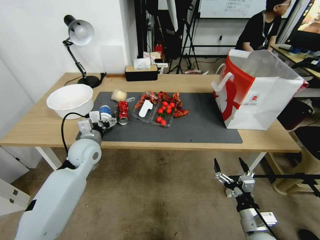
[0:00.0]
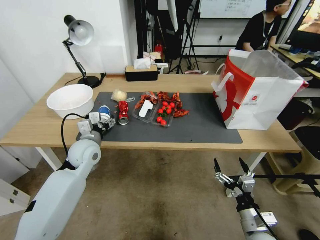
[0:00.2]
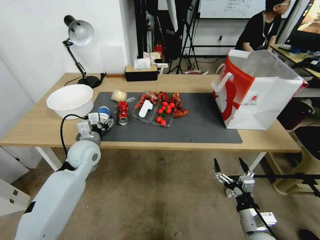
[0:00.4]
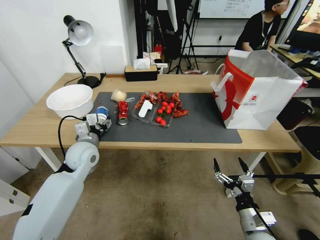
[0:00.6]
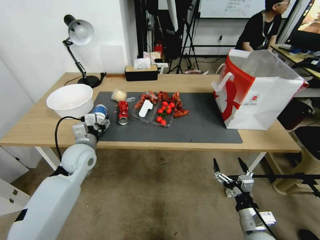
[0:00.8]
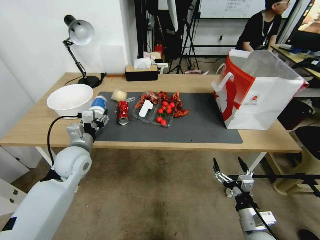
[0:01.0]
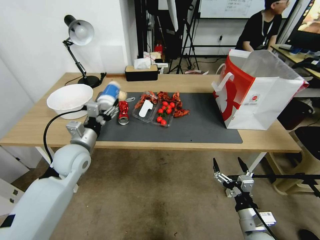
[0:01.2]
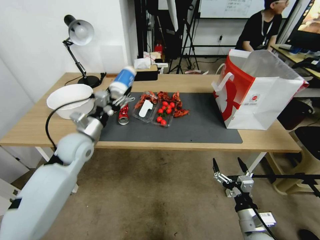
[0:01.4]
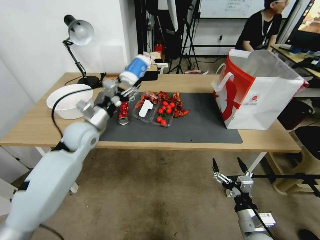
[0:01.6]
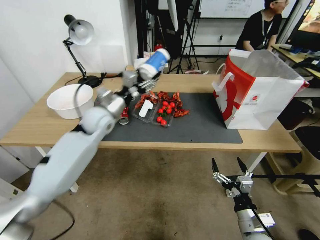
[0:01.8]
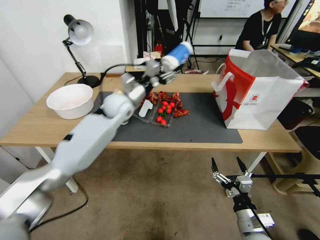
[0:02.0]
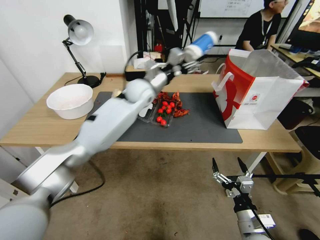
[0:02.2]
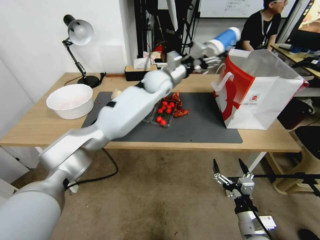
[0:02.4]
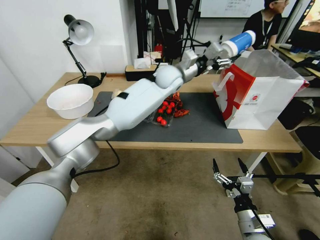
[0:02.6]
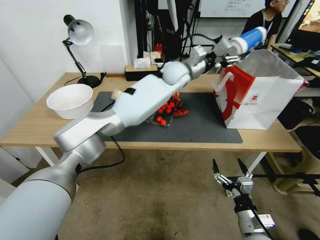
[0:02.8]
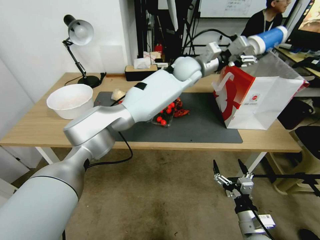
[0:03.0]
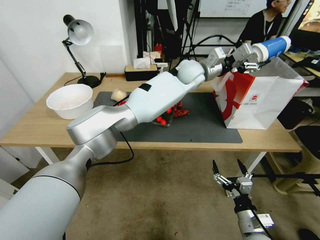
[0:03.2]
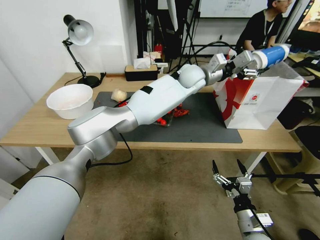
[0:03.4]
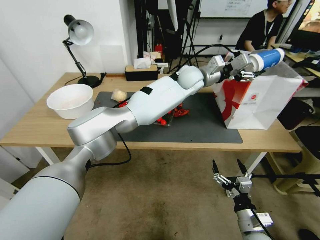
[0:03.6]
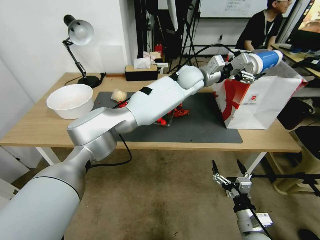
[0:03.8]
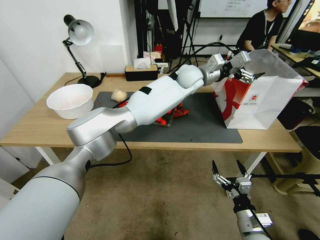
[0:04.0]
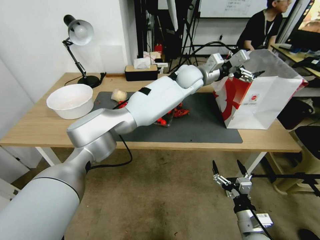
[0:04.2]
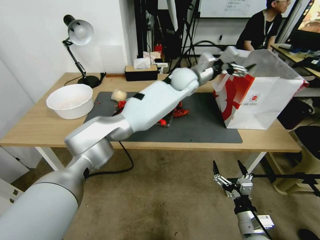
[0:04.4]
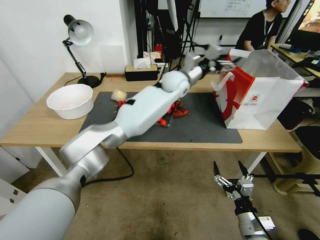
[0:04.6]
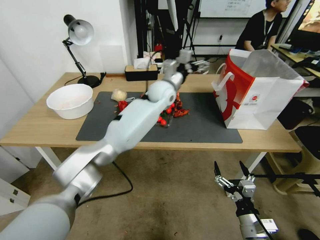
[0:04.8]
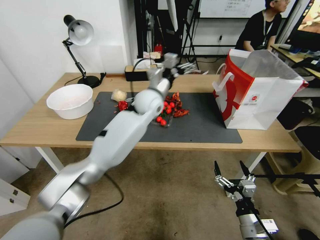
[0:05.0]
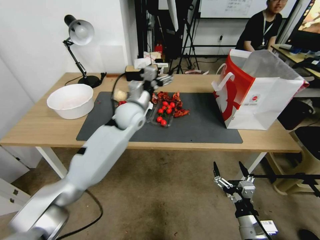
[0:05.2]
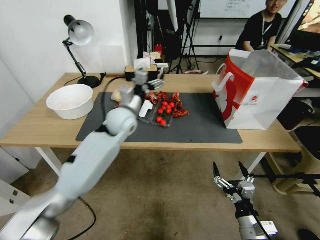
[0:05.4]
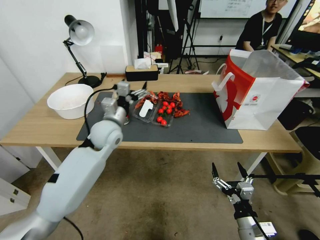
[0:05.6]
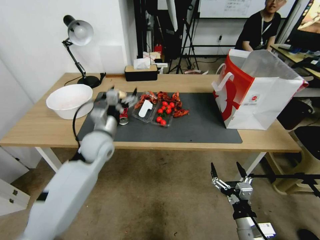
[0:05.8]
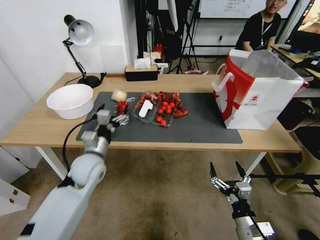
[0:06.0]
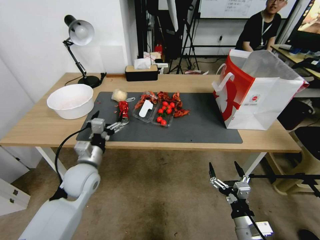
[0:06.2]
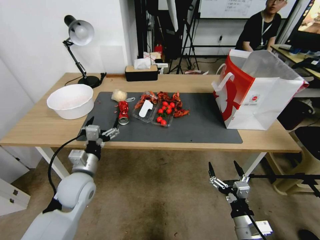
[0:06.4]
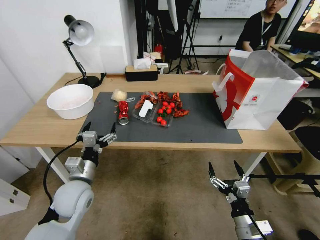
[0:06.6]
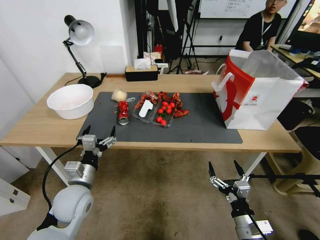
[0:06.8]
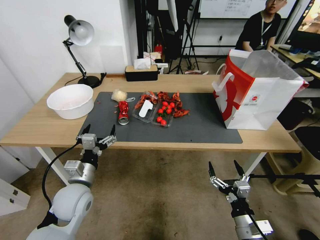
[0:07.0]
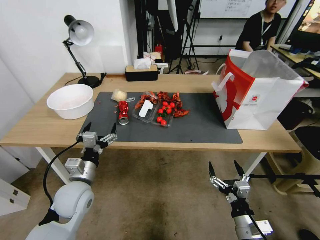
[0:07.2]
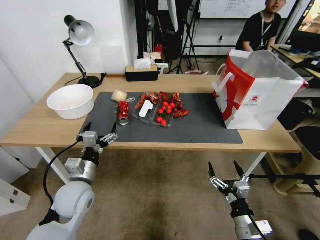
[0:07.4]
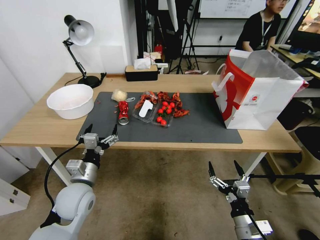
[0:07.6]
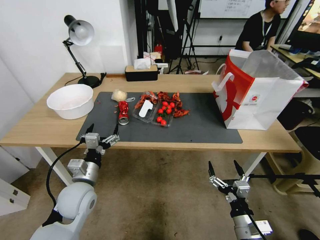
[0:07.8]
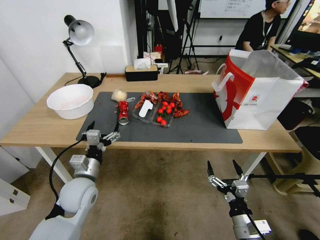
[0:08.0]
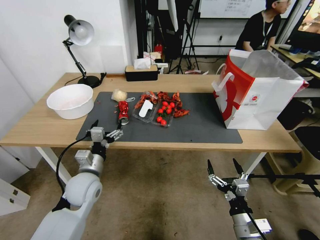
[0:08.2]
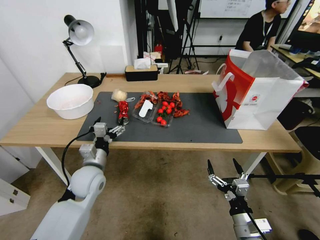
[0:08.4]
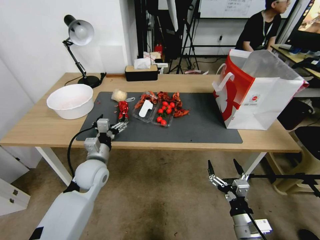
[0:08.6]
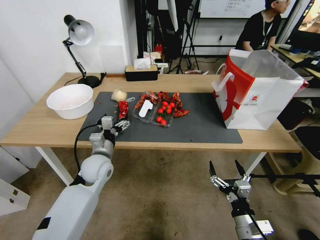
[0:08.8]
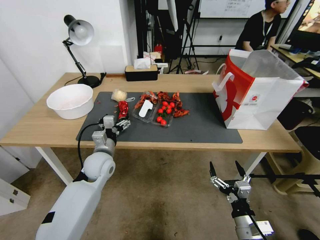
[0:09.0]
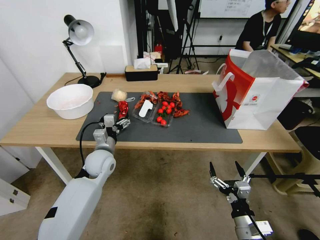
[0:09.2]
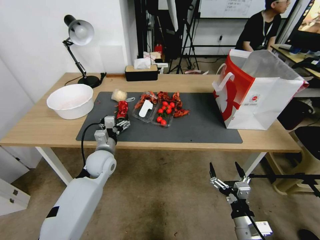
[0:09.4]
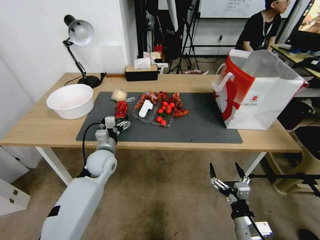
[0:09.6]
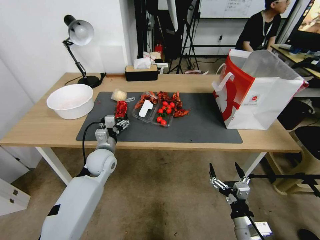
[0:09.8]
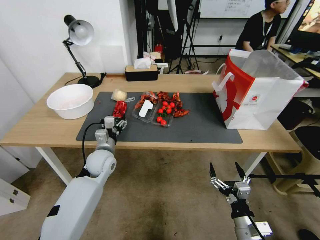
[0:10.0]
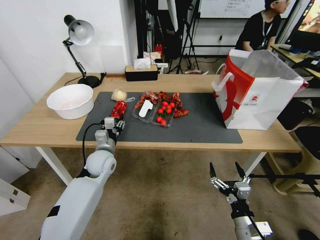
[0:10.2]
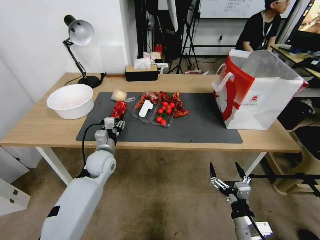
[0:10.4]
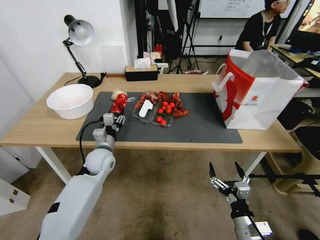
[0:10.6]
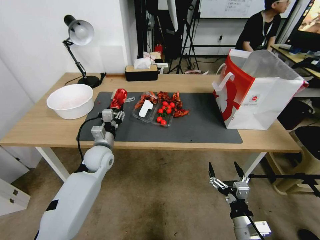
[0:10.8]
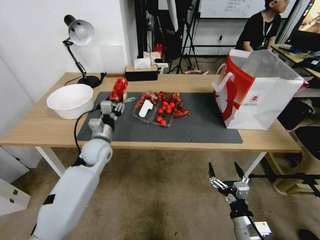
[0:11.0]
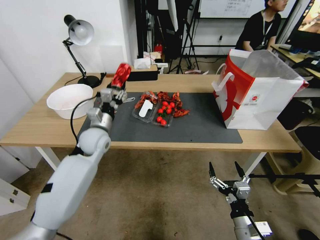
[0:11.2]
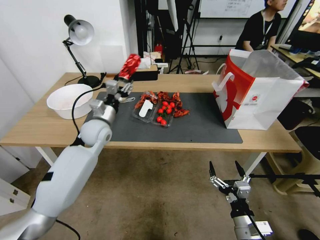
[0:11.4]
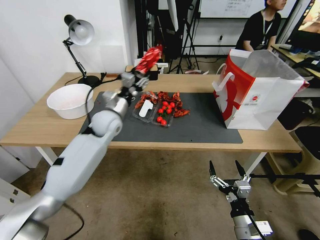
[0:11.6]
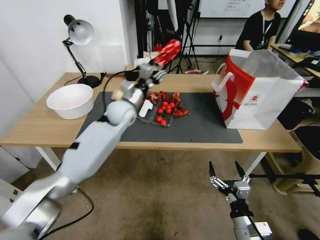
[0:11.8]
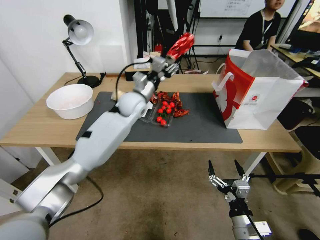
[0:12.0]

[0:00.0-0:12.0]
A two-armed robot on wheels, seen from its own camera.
0:00.0 to 0:01.6: The left gripper closes up.
0:01.6 to 0:03.0: The left gripper is displaced to the right, forward and upward by some 40 cm.
0:03.0 to 0:04.4: The left gripper opens.
0:04.4 to 0:06.0: The left gripper heads to the left, backward and downward, covering about 15 cm.
0:06.0 to 0:07.6: The left gripper goes some 35 cm backward, to the left and downward.
0:07.6 to 0:09.0: The left gripper is displaced forward by approximately 10 cm.
0:09.0 to 0:10.4: The left gripper closes its fingers.
0:10.4 to 0:12.0: The left gripper shifts approximately 20 cm upward, forward and to the right.

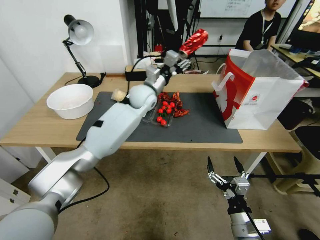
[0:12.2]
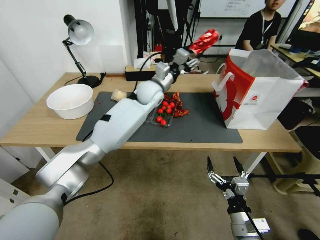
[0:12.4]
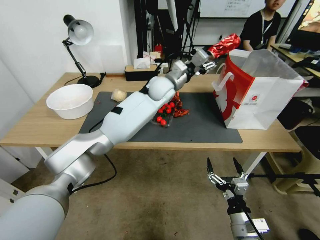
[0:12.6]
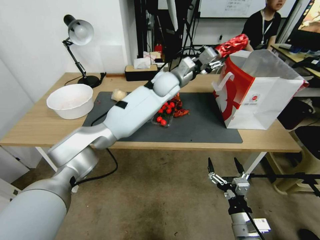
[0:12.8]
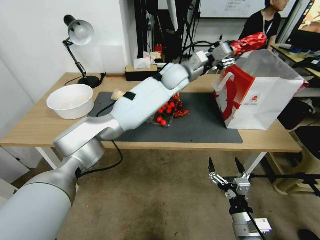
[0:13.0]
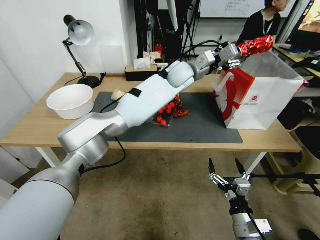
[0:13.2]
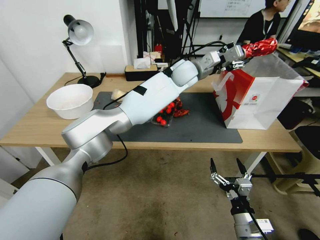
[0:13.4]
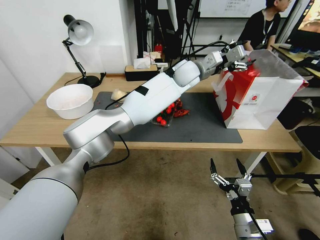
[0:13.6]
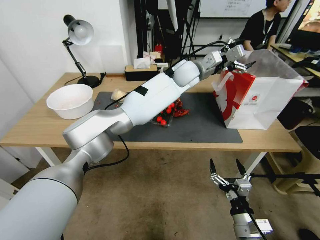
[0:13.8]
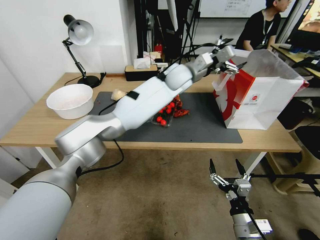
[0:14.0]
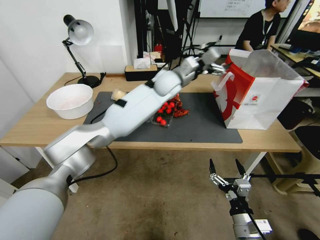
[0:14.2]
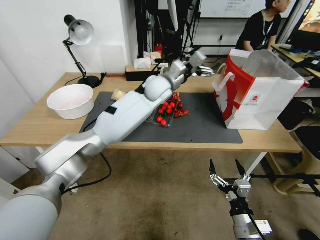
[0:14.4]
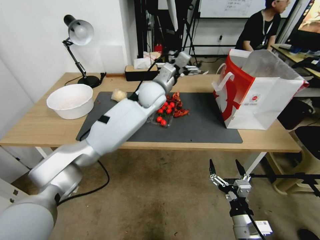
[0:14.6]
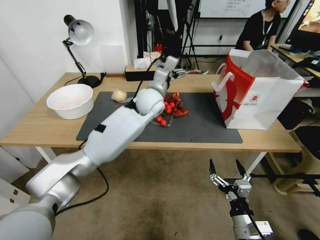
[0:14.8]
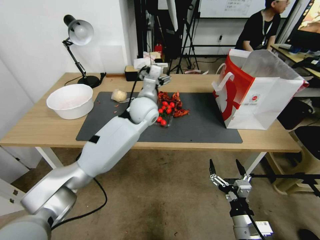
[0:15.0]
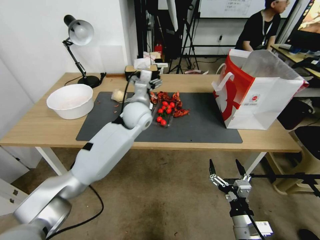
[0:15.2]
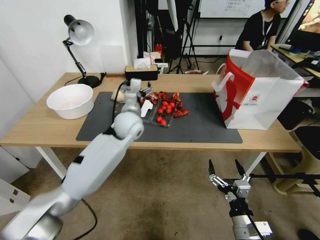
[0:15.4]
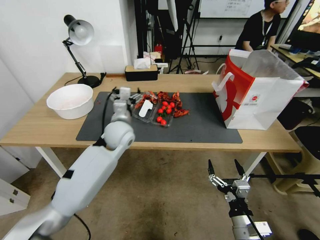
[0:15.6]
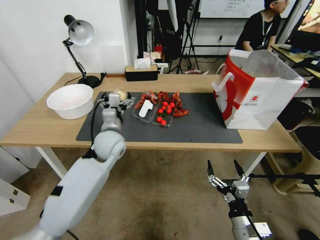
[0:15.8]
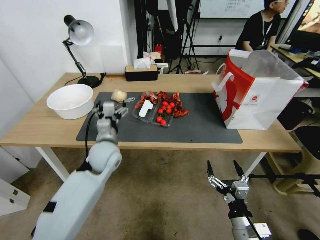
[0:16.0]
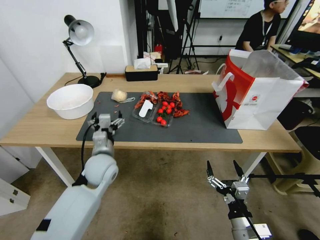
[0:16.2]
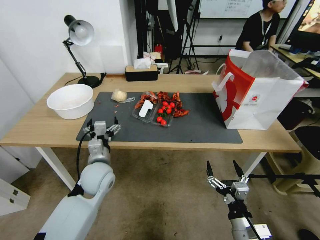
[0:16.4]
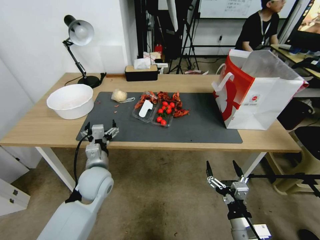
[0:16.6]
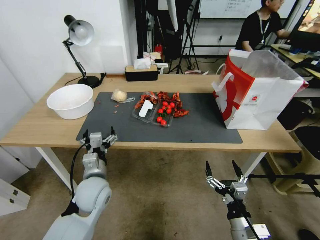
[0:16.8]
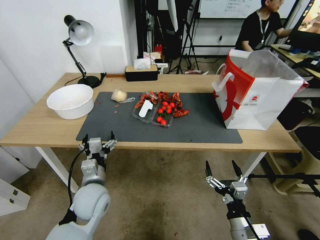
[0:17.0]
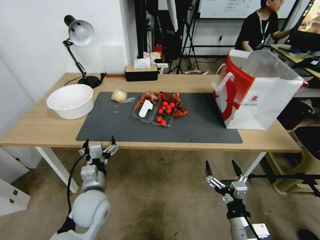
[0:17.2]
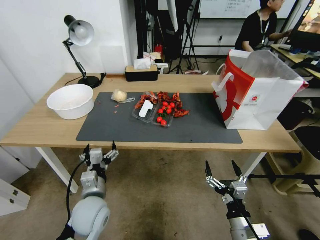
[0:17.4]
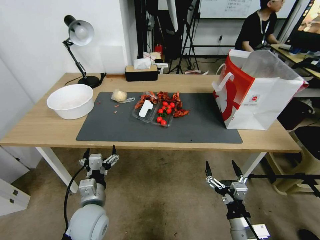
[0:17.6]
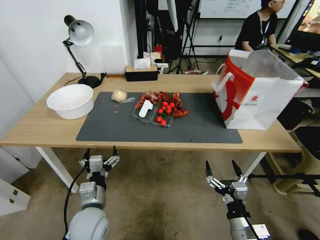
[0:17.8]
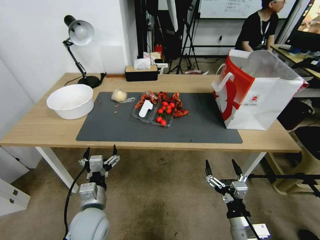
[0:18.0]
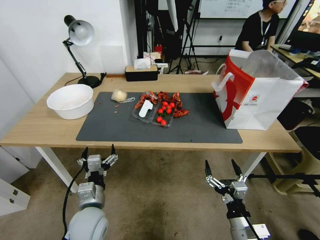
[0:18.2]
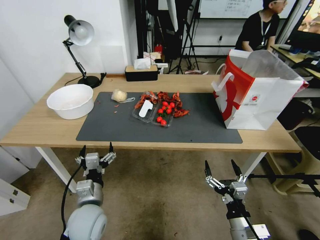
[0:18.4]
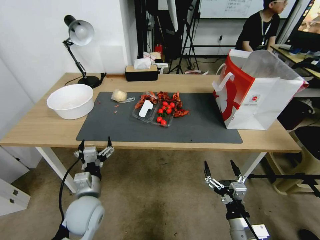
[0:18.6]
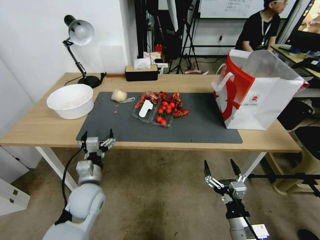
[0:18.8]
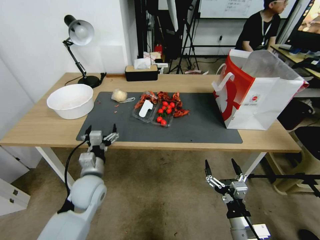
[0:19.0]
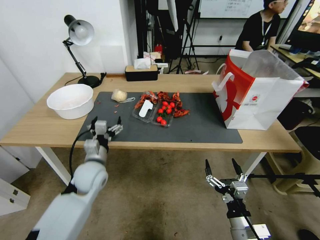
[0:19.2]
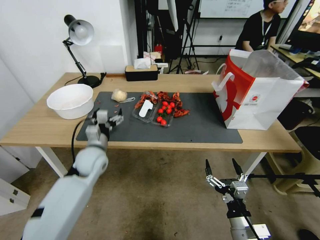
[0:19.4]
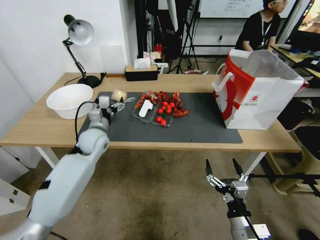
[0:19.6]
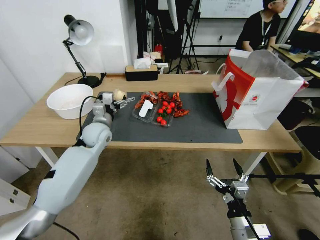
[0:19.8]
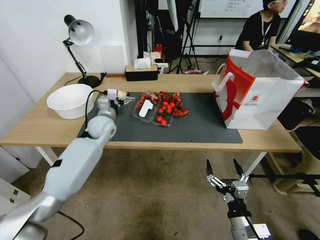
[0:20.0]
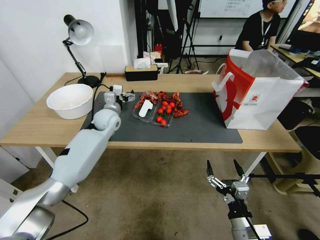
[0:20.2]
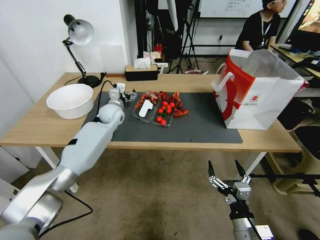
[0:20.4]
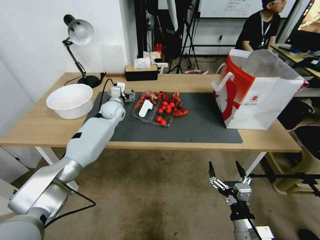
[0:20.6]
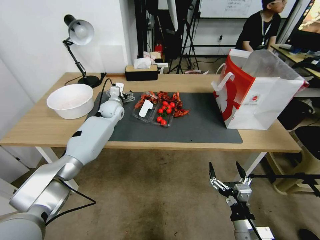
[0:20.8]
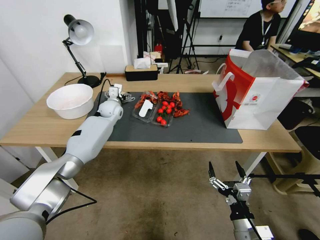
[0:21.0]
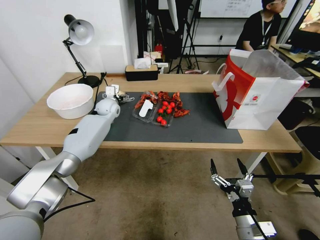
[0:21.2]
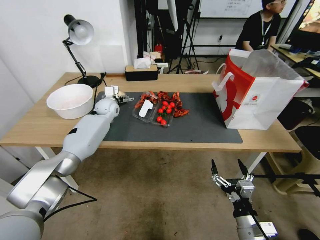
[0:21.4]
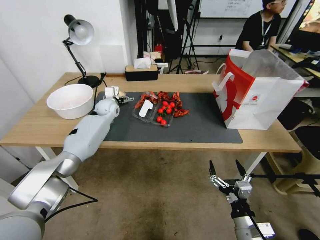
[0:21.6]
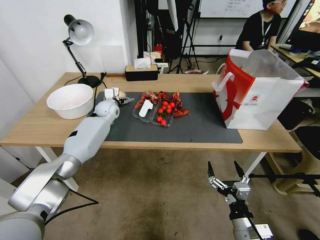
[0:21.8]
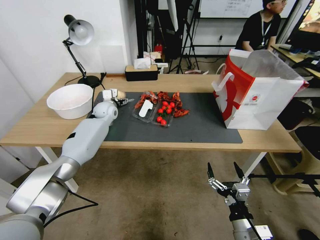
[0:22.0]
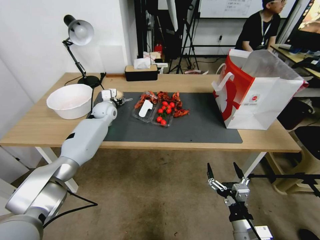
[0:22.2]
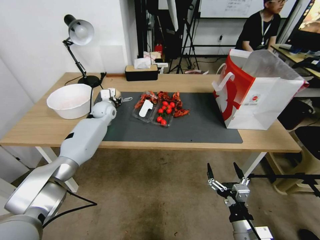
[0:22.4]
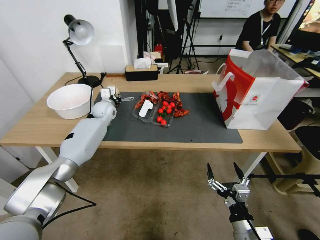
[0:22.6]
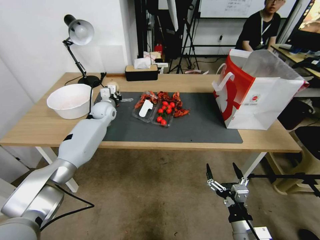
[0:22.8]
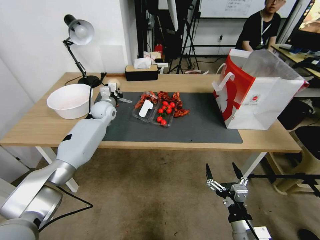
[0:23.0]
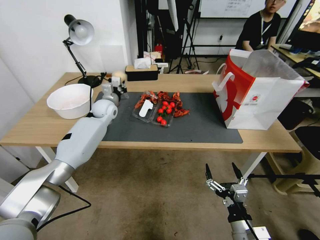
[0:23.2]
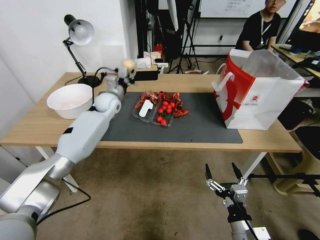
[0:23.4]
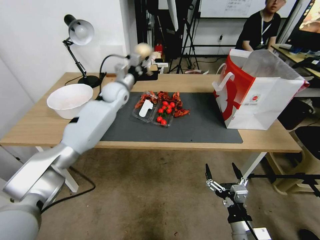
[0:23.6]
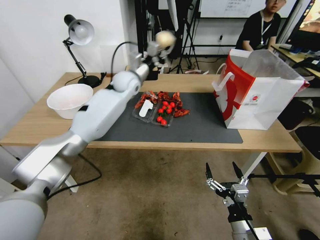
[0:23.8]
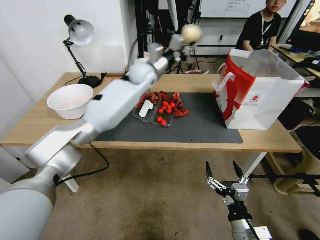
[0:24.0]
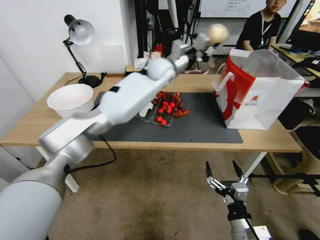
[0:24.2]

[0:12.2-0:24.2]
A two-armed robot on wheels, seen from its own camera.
0:12.2 to 0:13.8: The left gripper moves to the right and upward, about 20 cm, and opens up.
0:13.8 to 0:15.2: The left gripper travels to the left, downward and backward by about 20 cm.
0:15.2 to 0:16.6: The left gripper goes about 25 cm backward, to the left and downward.
0:16.6 to 0:18.2: The left gripper travels backward by approximately 10 cm.
0:18.2 to 0:19.8: The left gripper moves forward, approximately 25 cm.
0:19.8 to 0:21.2: The left gripper moves forward, roughly 15 cm.
0:21.2 to 0:22.6: The left gripper closes its fingers.
0:22.6 to 0:24.2: The left gripper goes some 30 cm to the right and upward.
